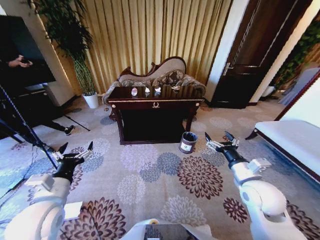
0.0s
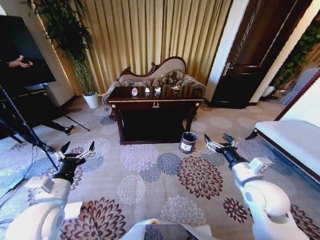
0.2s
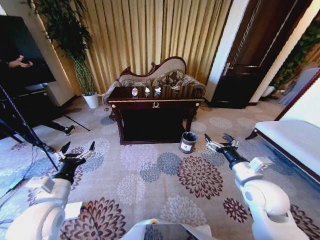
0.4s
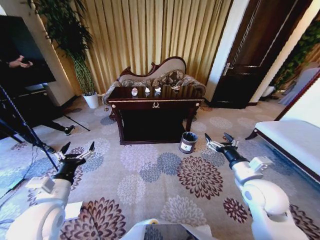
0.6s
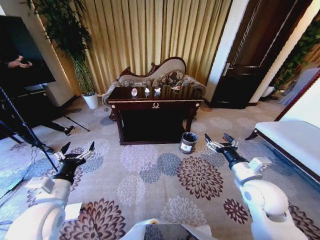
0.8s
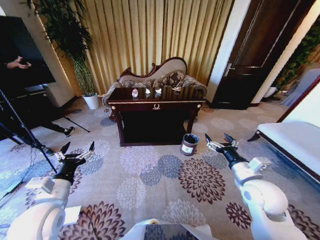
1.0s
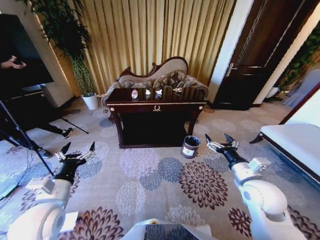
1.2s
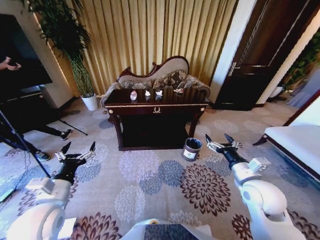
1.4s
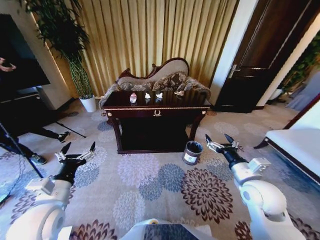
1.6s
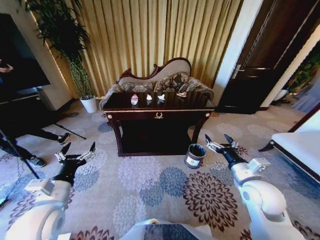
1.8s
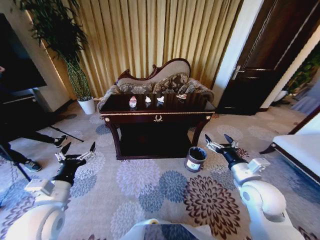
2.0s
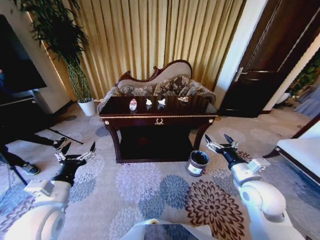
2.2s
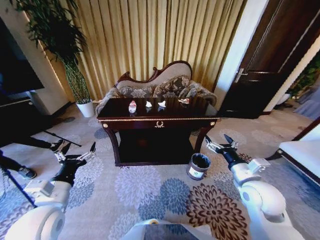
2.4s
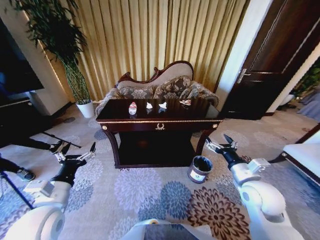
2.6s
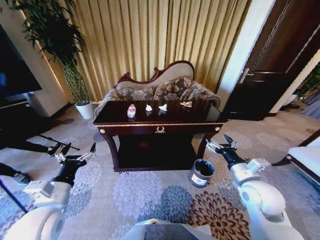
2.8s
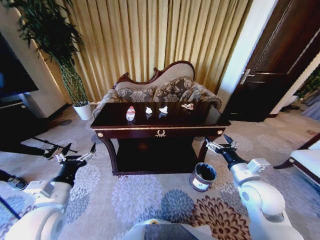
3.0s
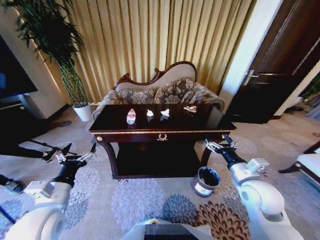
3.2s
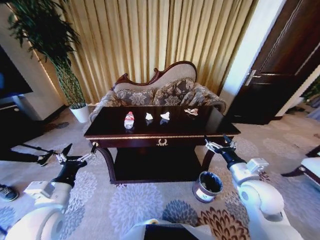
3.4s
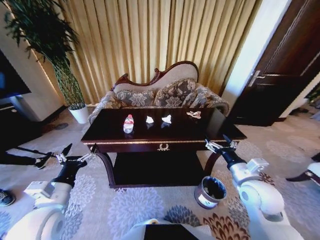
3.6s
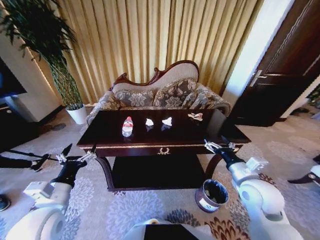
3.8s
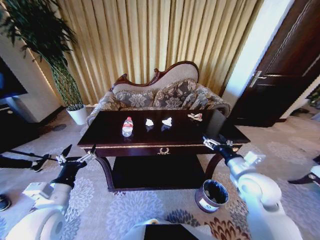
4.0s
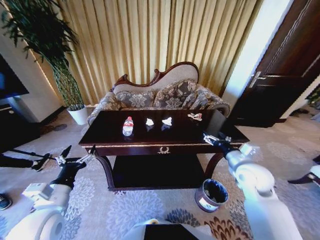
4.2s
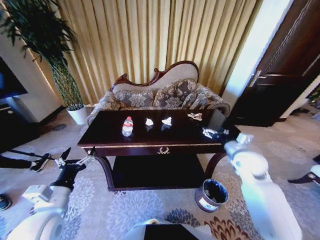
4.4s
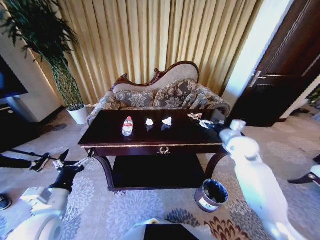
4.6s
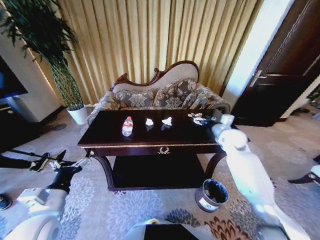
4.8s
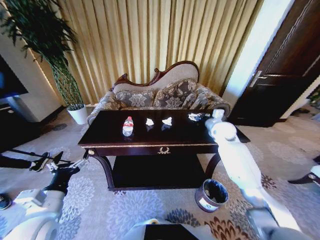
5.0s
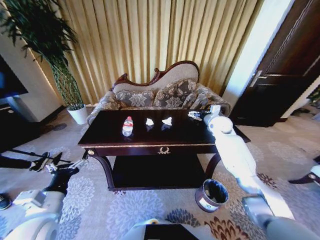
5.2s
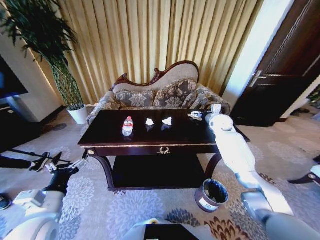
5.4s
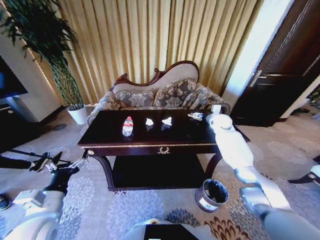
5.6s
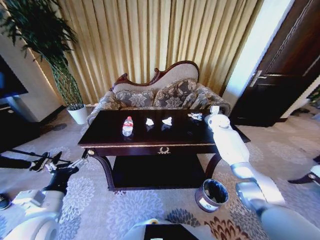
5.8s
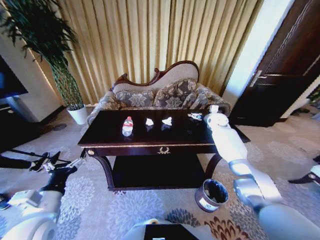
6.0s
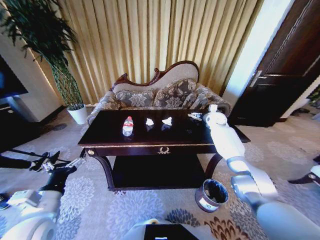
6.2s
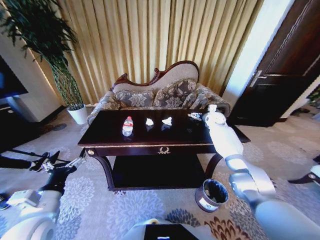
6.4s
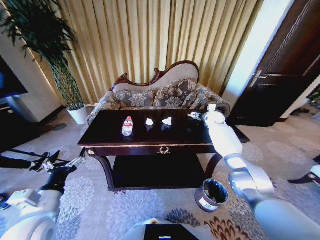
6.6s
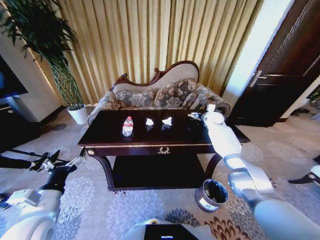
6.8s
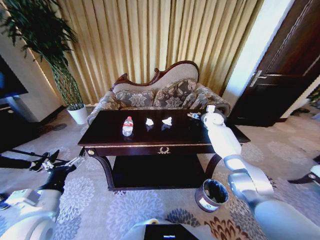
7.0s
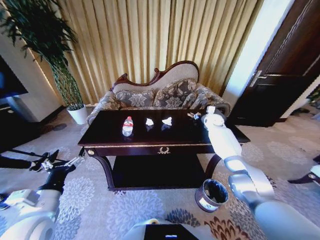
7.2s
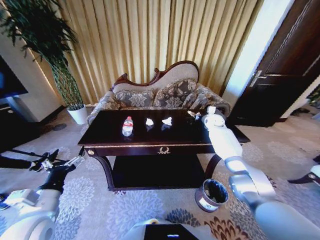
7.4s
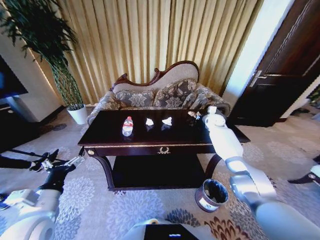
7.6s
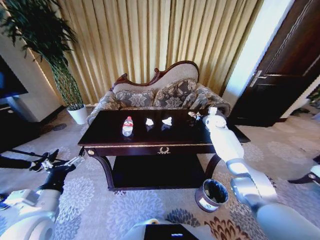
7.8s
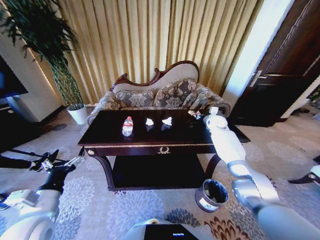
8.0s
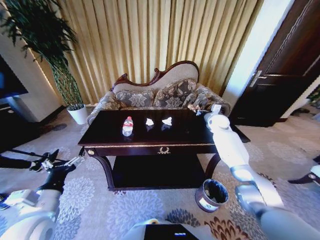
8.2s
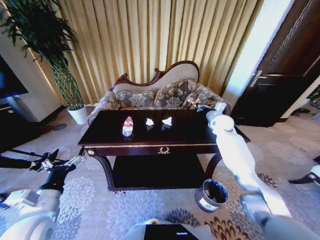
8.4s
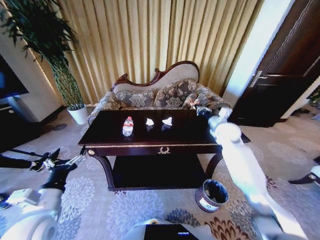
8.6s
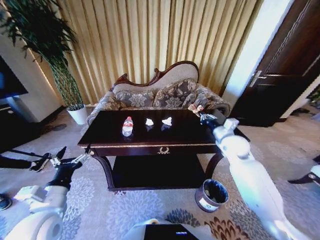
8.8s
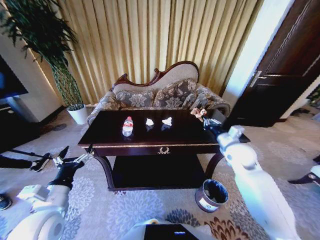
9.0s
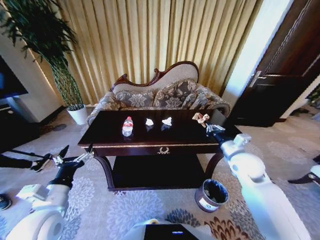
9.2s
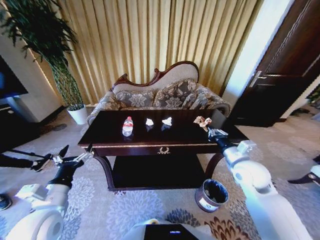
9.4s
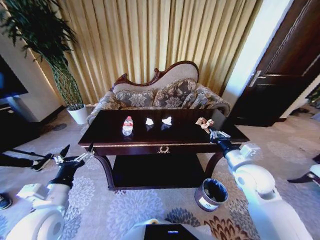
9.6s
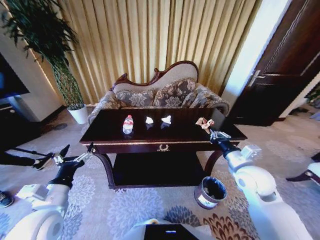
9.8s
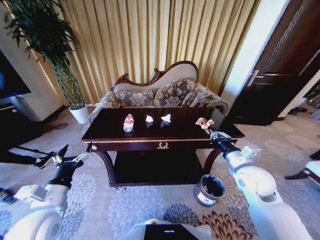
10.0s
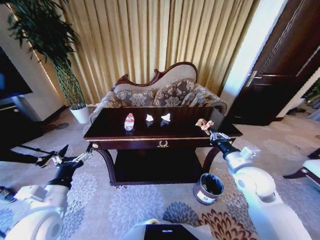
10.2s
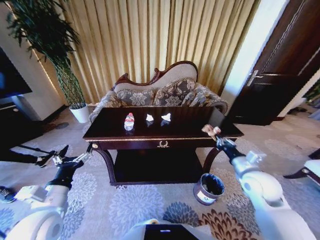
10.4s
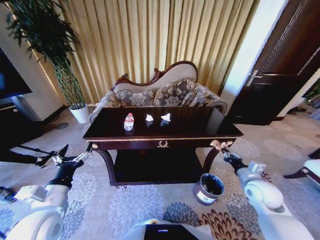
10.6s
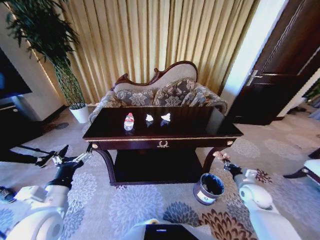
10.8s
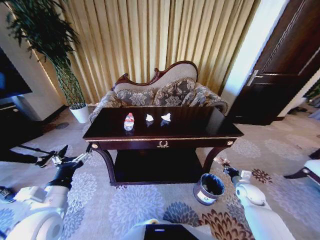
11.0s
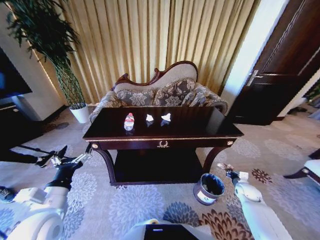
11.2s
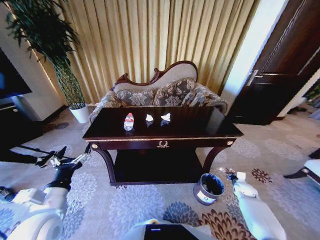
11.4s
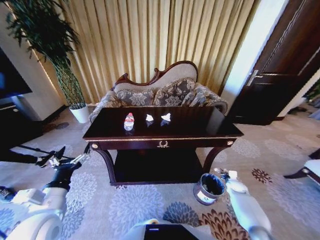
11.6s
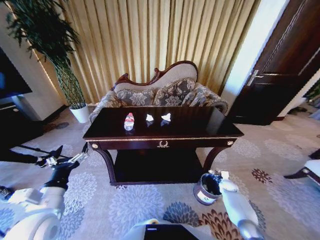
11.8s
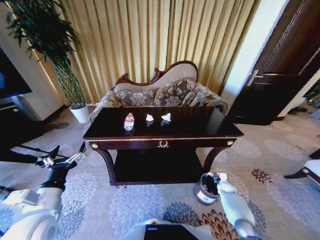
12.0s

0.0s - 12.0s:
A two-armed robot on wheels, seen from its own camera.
Task of the whole recording: Move to the front of the table and place the trash on the table into the trash bin.
3.0s - 4.4s: The right gripper shifts roughly 10 cm forward.
4.4s - 6.0s: The right gripper shifts about 30 cm forward.
6.0s - 7.6s: The right gripper closes up.
7.6s - 9.0s: The right gripper shifts about 25 cm backward.
9.0s - 10.4s: The right gripper heads backward, covering about 10 cm.
10.4s - 12.0s: The right gripper heads downward, covering about 35 cm.

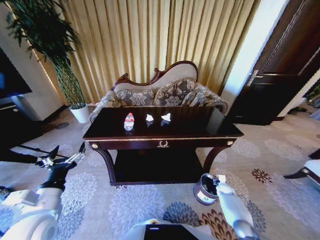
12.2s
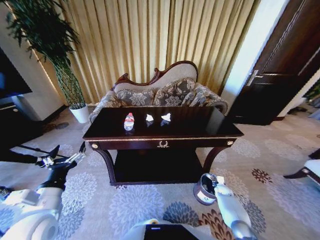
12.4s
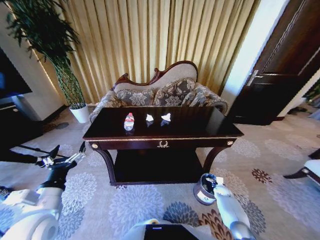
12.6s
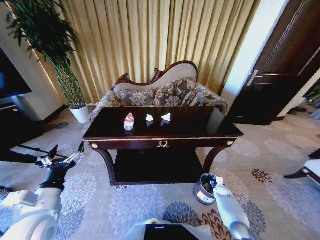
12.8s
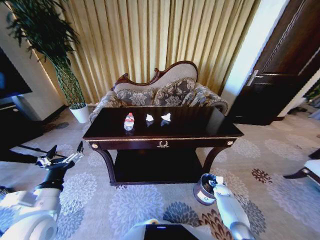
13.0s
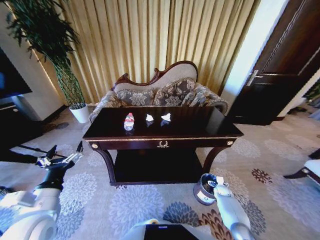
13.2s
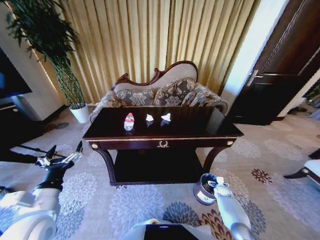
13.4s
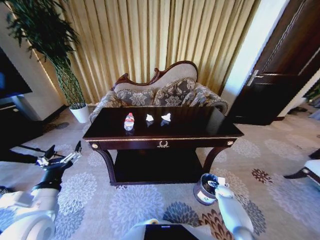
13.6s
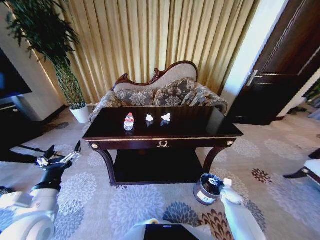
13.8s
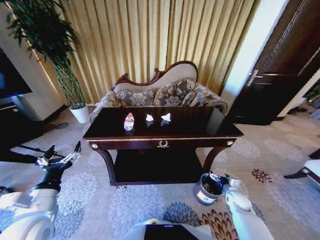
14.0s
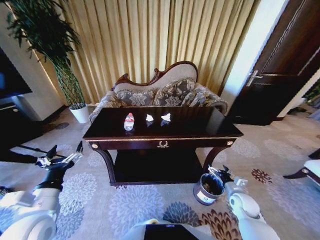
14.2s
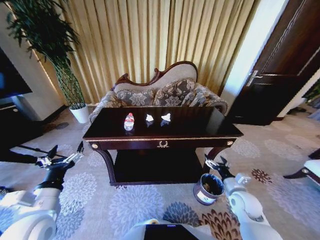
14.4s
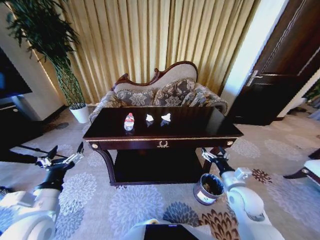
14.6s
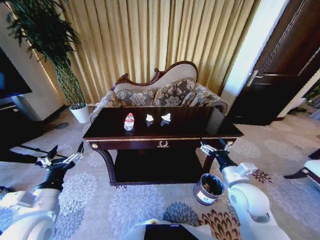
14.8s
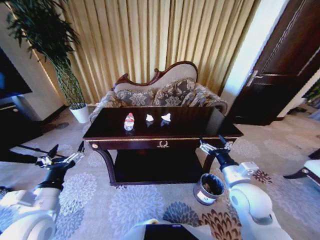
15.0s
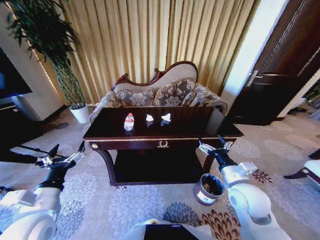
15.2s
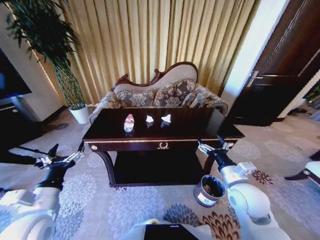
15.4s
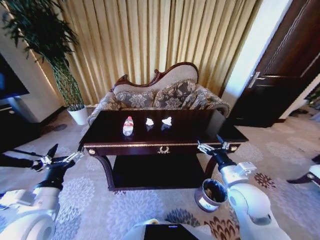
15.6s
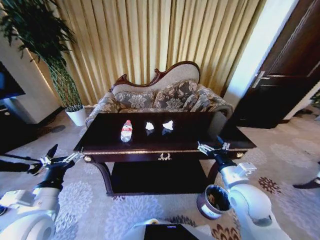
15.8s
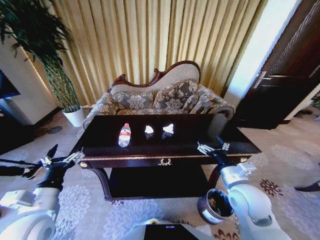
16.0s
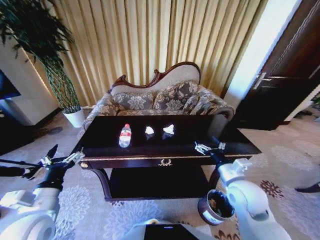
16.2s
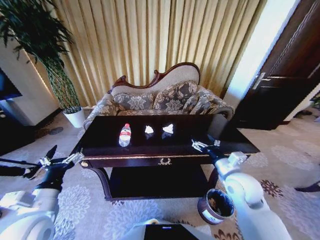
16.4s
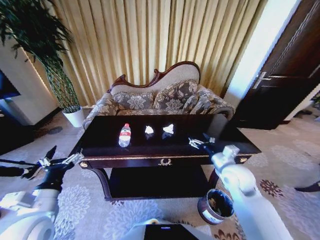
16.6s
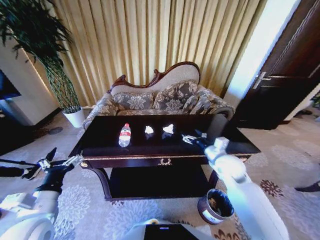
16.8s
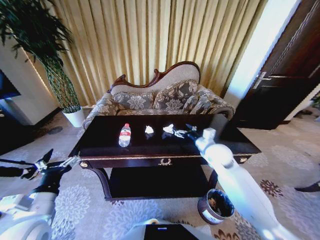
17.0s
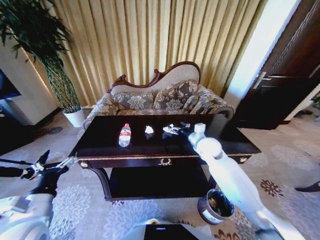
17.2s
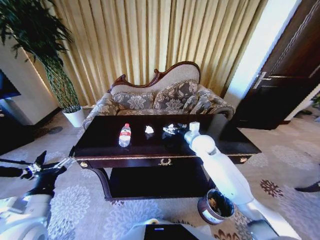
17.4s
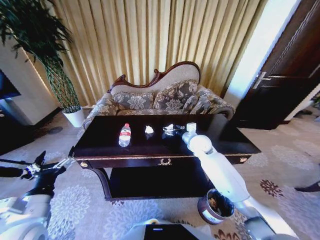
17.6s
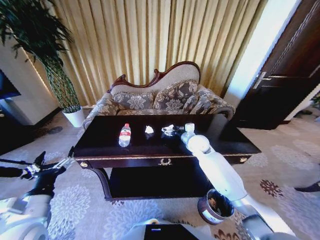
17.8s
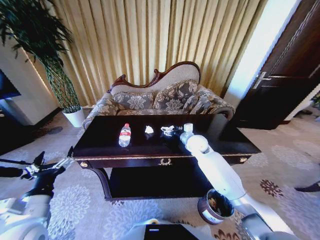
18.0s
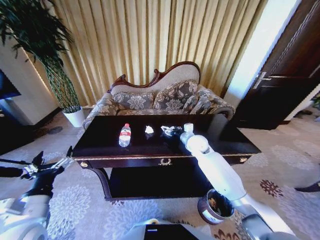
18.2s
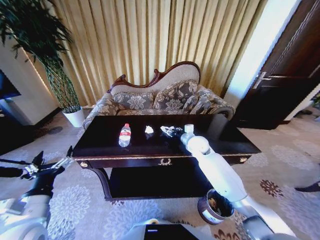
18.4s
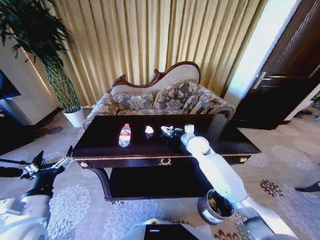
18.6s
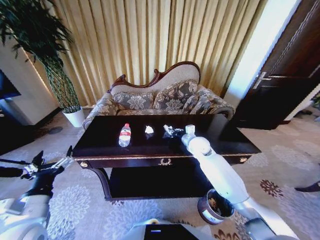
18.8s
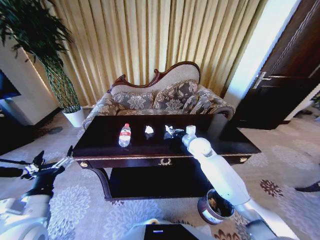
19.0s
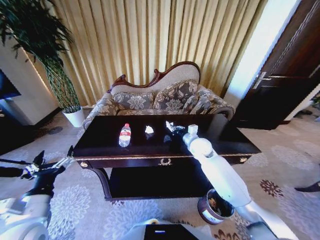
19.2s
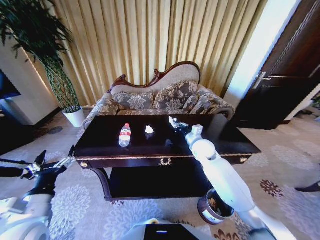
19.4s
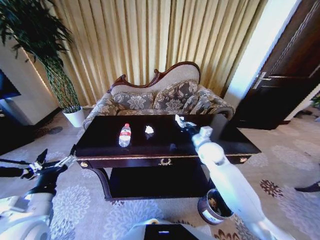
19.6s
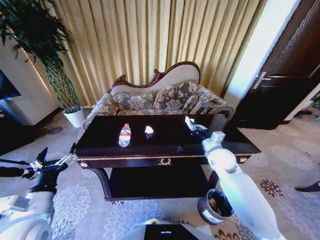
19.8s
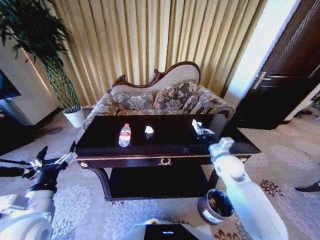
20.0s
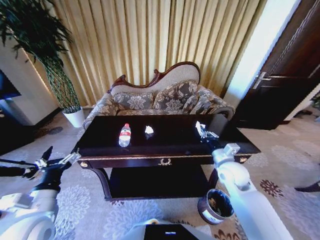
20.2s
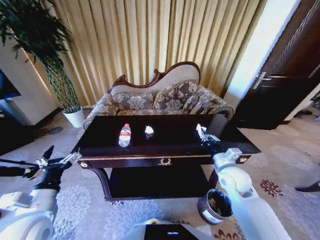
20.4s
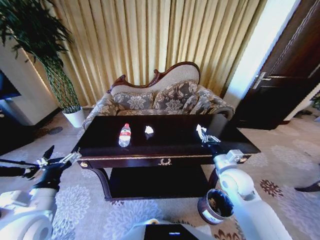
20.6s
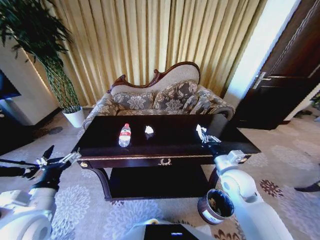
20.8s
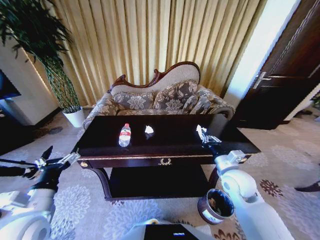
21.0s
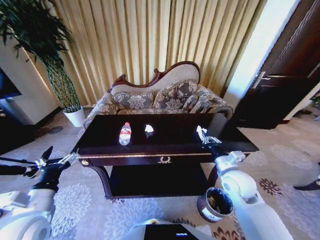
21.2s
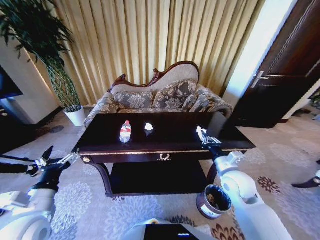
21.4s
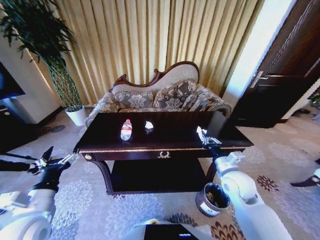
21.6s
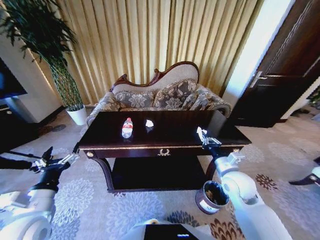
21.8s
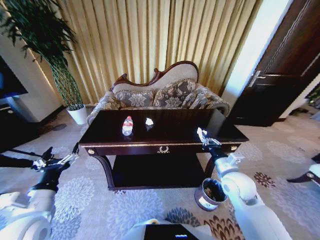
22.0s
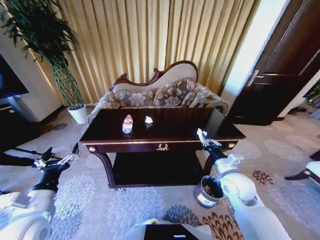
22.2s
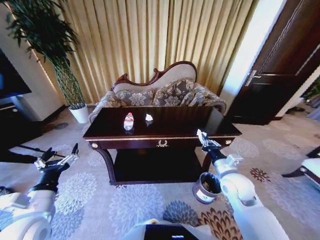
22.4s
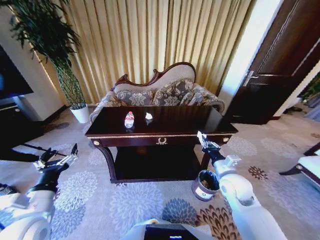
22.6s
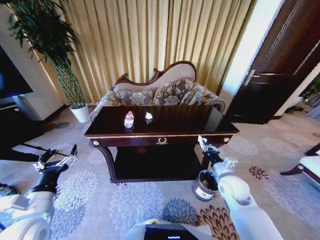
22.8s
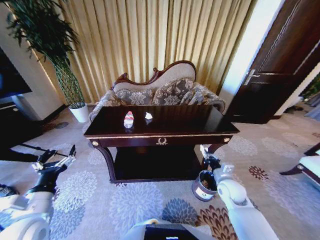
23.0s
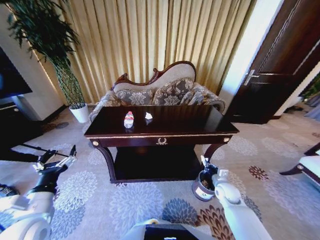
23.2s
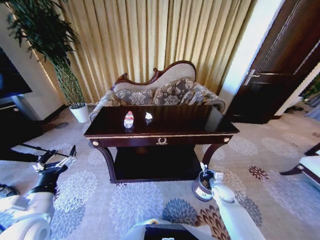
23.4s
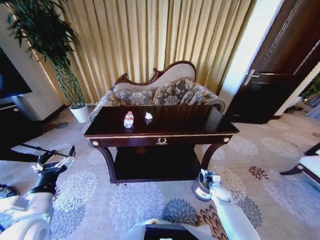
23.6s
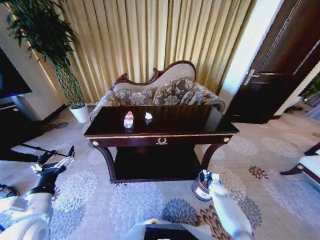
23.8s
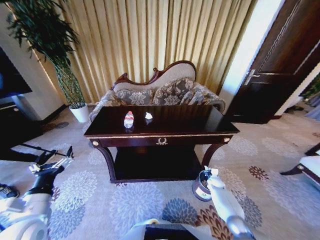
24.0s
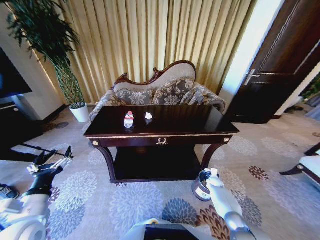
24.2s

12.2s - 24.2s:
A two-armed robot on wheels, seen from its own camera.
Task of the whole recording: Move to the front of the table and place the trash on the table into the trash bin.
12.2s - 13.8s: The right gripper ends up approximately 5 cm from where it was, and opens up.
13.8s - 15.2s: The right gripper shifts about 35 cm upward and to the left.
15.2s - 16.6s: The right gripper travels forward by some 5 cm.
16.6s - 18.2s: The right gripper shifts about 20 cm forward and to the left.
18.2s - 19.8s: The right gripper travels backward and to the right by roughly 10 cm, and closes its fingers.
19.8s - 21.2s: The right gripper moves backward, about 10 cm.
22.6s - 24.2s: The right gripper shifts roughly 30 cm downward.
